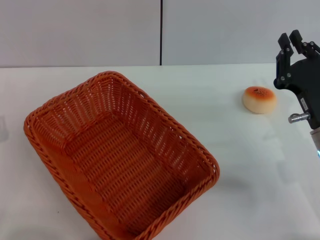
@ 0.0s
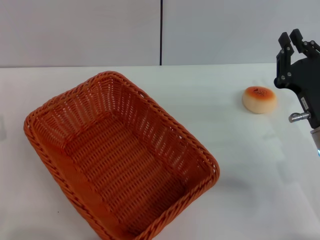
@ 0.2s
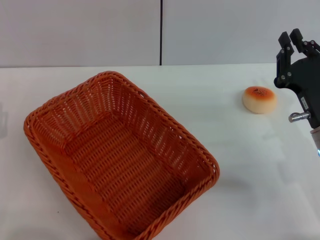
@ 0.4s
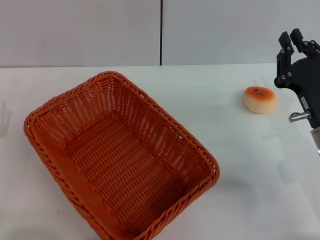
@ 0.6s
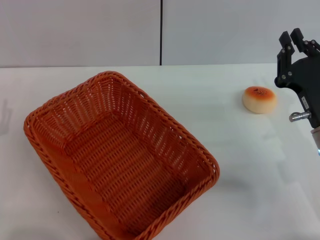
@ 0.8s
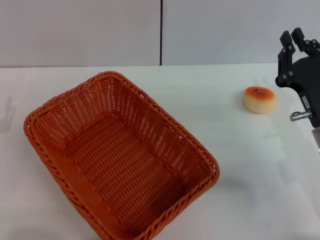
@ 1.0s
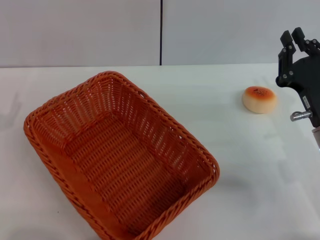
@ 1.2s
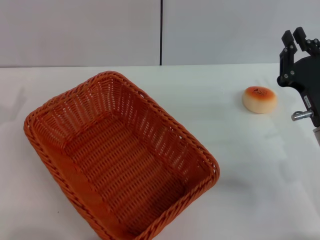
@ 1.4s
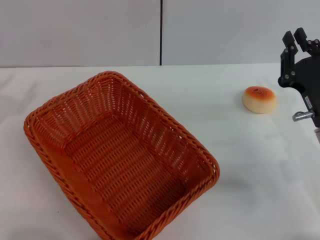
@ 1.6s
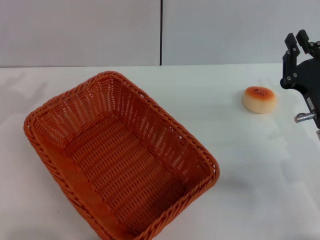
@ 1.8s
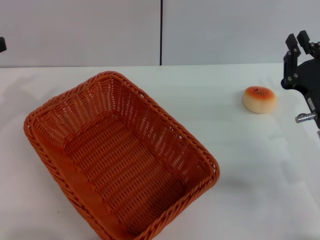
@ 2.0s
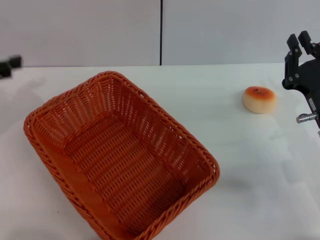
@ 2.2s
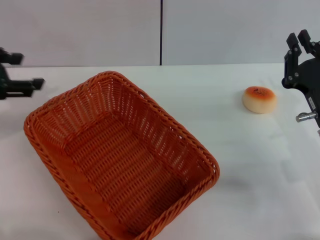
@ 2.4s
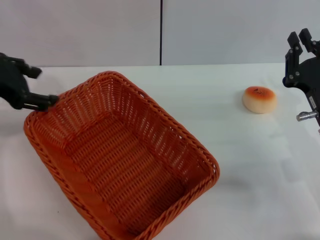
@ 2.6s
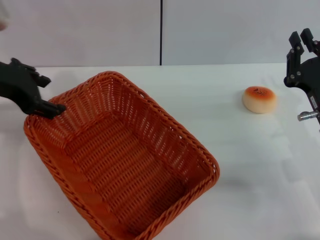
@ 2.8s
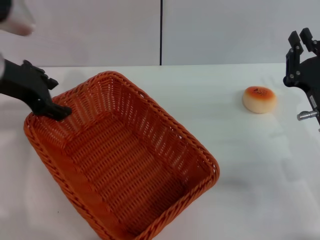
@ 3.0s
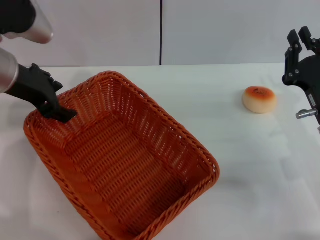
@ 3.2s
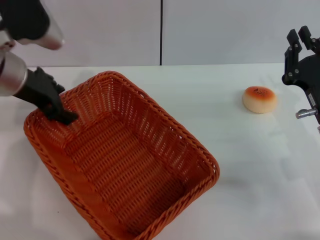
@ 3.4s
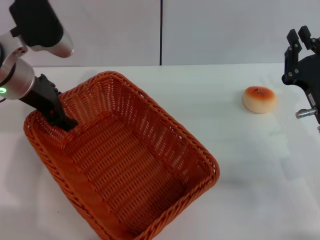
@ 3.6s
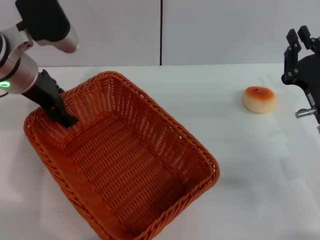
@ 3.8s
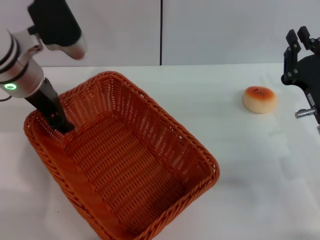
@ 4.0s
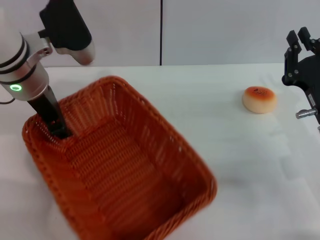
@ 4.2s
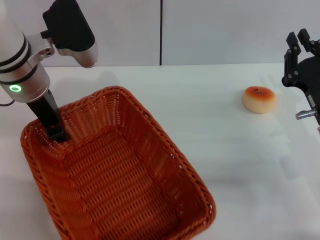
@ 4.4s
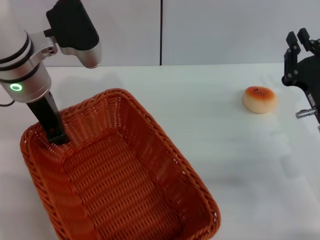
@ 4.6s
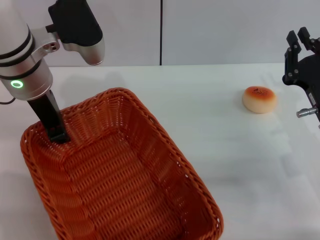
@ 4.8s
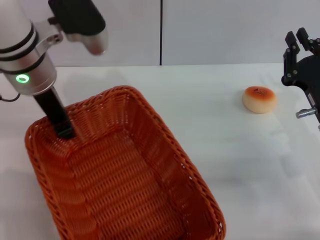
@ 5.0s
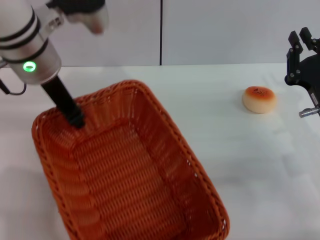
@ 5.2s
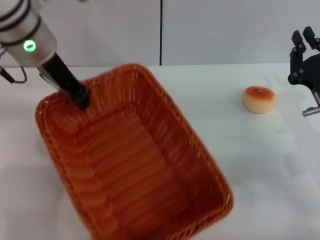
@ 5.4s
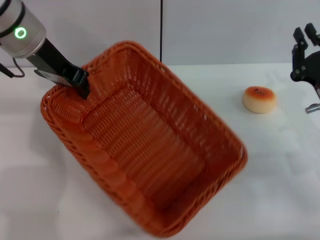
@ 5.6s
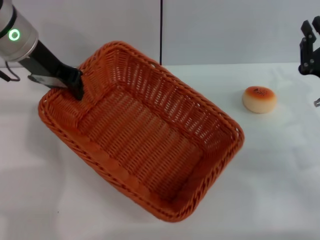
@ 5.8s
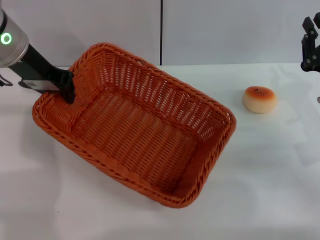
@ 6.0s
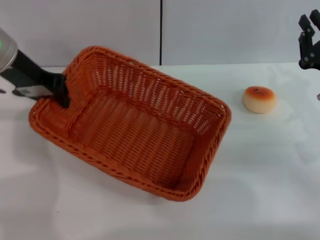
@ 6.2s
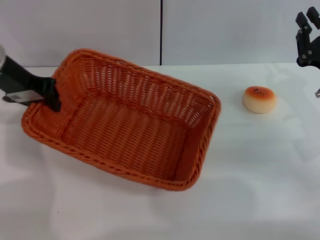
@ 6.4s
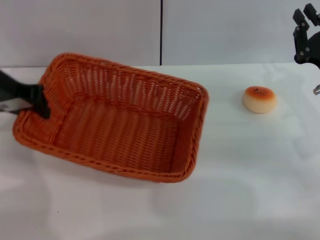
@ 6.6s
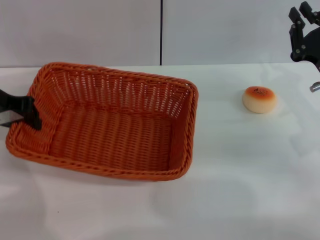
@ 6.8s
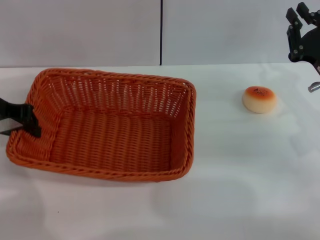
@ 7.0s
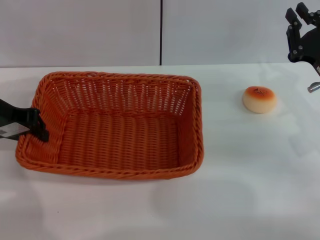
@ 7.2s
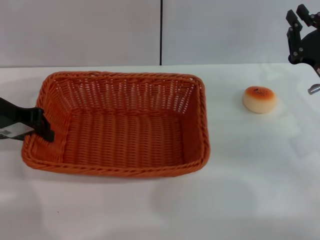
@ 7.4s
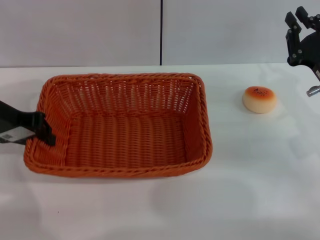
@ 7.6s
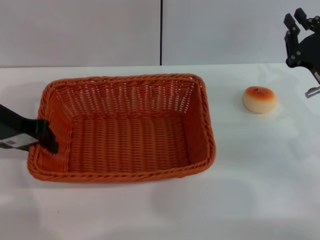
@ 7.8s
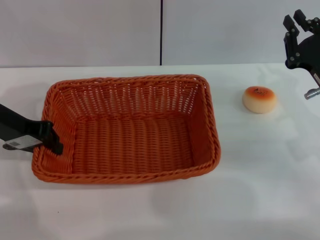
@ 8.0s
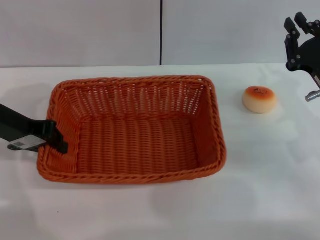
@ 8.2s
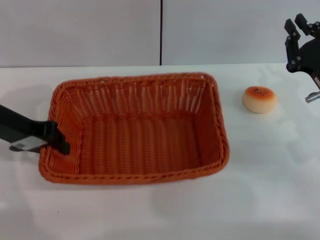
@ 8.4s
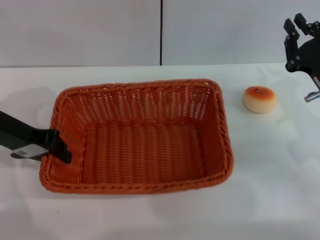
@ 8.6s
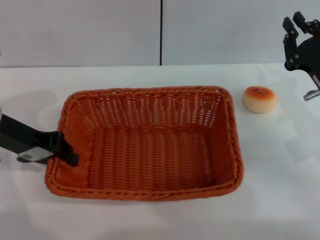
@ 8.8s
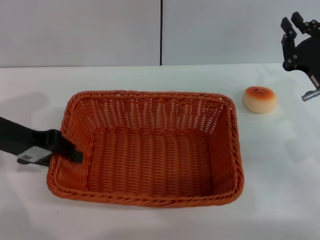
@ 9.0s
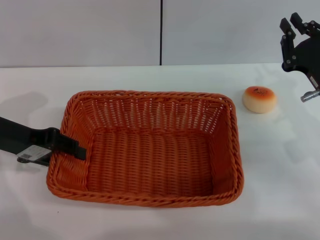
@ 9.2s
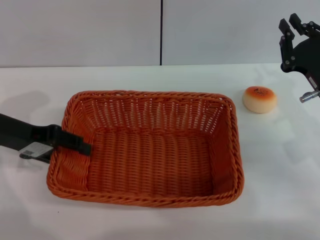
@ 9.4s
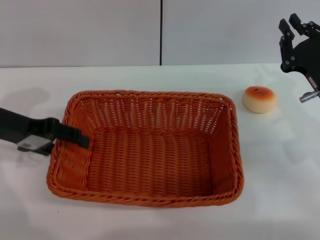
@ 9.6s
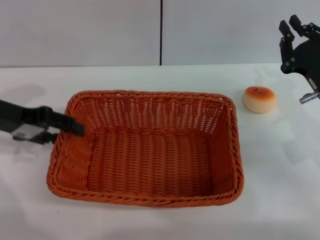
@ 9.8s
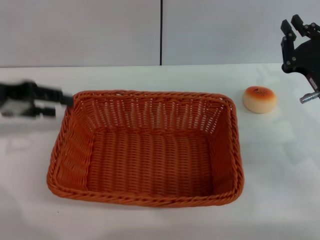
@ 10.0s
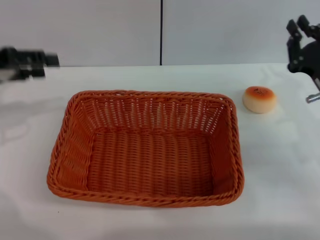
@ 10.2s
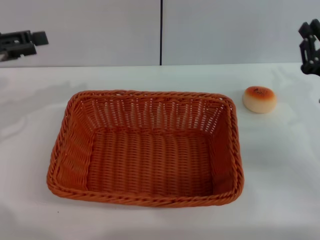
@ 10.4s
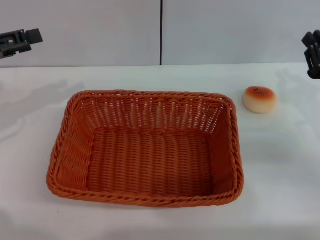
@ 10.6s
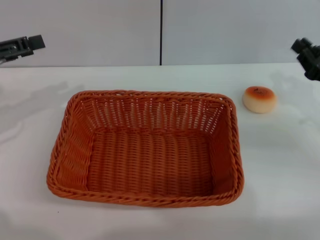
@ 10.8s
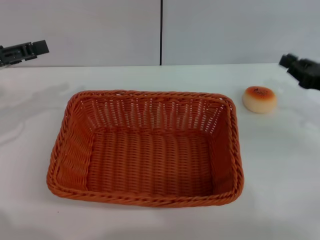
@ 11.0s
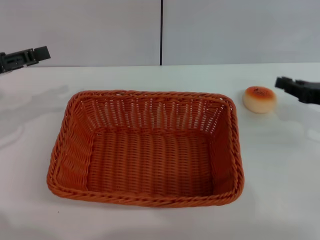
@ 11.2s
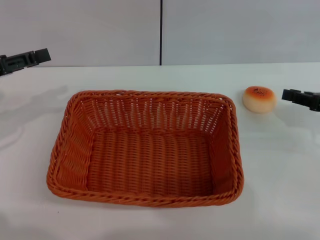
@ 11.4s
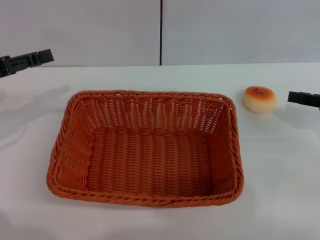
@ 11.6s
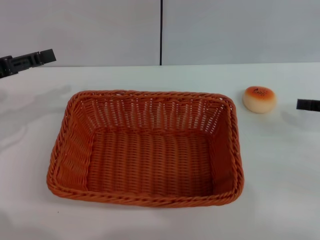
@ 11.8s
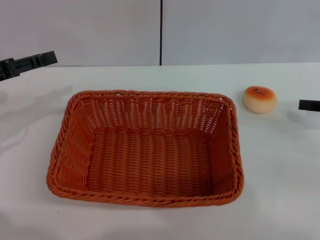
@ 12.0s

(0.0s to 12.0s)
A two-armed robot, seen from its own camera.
Step, 0.0s - 10.0s: Move the basket to the center of view with the left gripper.
1.6s - 3.0s: The left gripper goes about 20 cm to the right, upward and forward.
3.0s - 4.4s: The left gripper heads to the right, covering some 5 cm, and closes up.
4.4s - 6.0s: The left gripper changes place by about 5 cm, and closes up.
6.0s - 7.6s: The left gripper goes some 10 cm to the left and backward.
9.0s - 10.4s: The left gripper moves to the left, about 5 cm, and opens its fingers.
10.4s - 12.0s: The right gripper travels to the right and upward by some 10 cm, and opens its fingers.

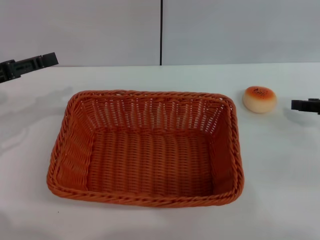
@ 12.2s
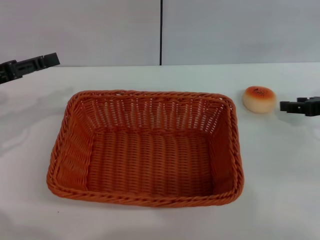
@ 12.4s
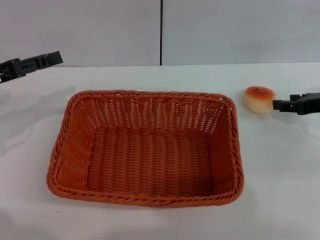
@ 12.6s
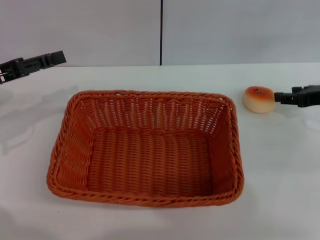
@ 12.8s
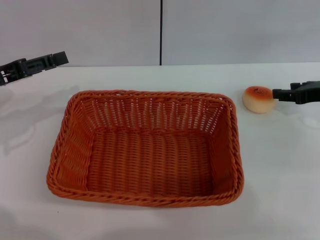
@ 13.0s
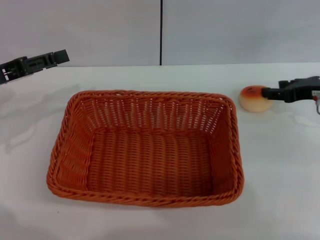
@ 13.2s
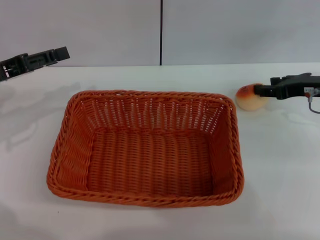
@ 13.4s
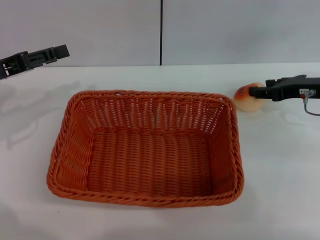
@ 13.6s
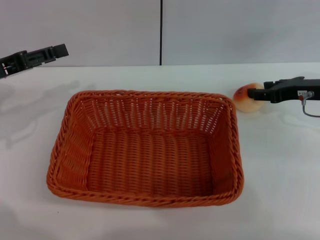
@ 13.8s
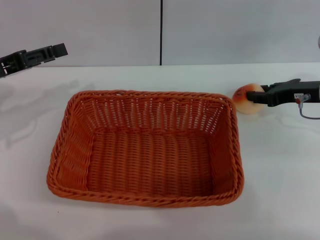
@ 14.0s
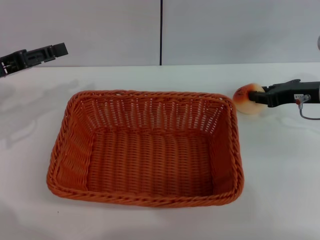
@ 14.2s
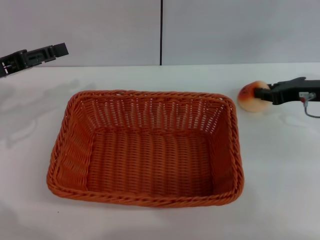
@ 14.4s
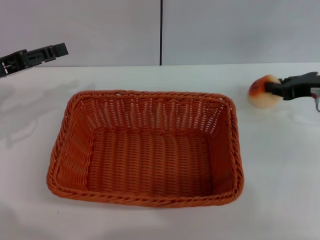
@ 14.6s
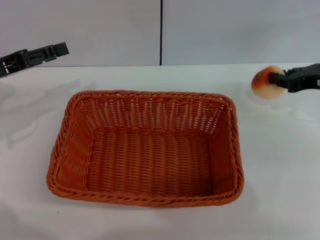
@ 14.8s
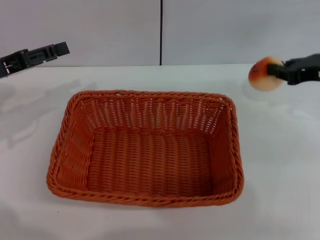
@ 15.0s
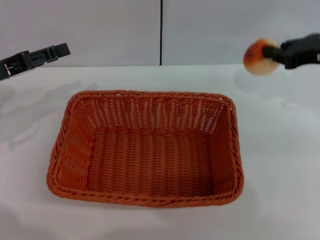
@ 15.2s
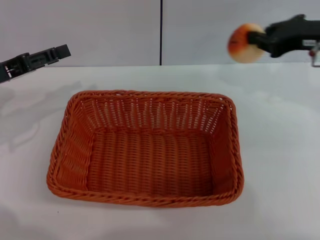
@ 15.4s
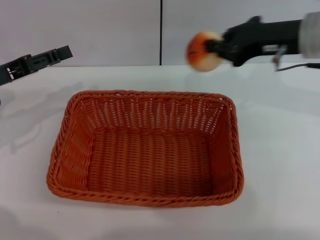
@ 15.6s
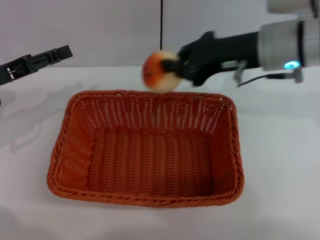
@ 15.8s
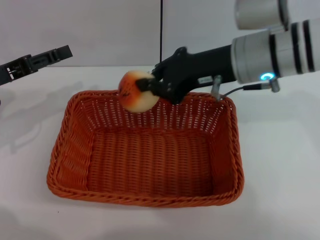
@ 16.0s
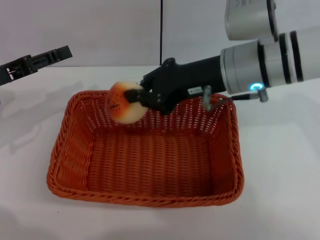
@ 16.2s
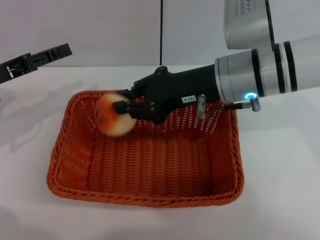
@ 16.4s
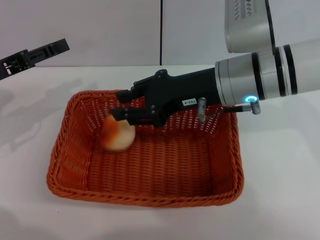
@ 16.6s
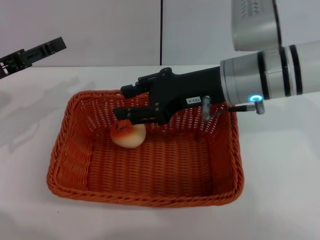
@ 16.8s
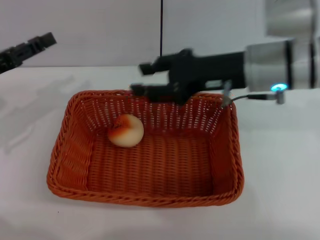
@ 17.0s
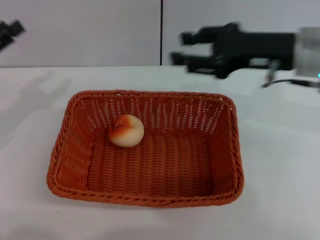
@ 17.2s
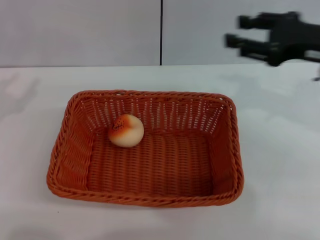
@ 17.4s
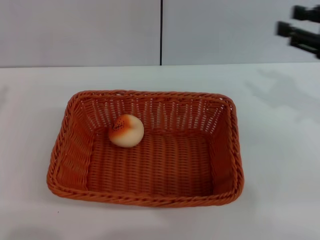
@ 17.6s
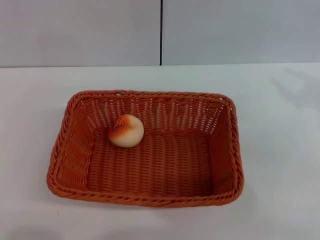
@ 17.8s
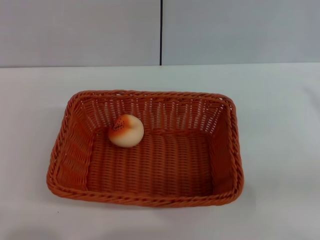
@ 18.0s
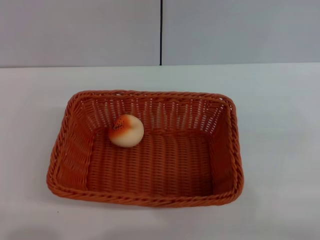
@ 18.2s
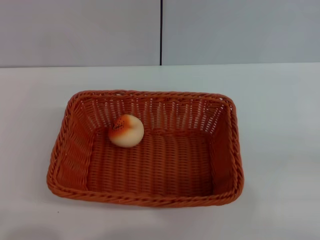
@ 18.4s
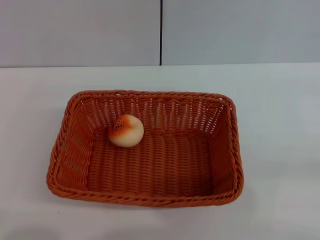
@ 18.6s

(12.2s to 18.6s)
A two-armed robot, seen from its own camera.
Step, 12.2s - 15.0s: Pick up the egg yolk pastry with the right gripper.
Step, 15.2s - 17.0s: Place the egg yolk pastry into the basket with the right gripper.
12.2s - 13.8s: The right gripper moves to the left, some 5 cm.
13.8s - 15.4s: The right gripper shifts about 10 cm upward, and closes up.
15.4s - 17.0s: The right gripper moves to the left, approximately 10 cm, and opens.
17.0s - 18.6s: The right gripper goes roughly 35 cm to the right and backward; the left gripper shifts about 20 cm backward and to the left.

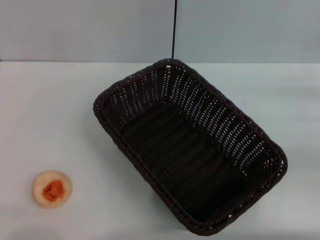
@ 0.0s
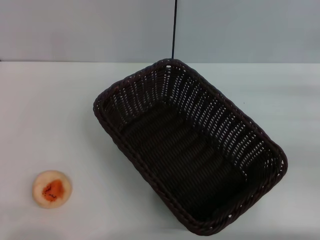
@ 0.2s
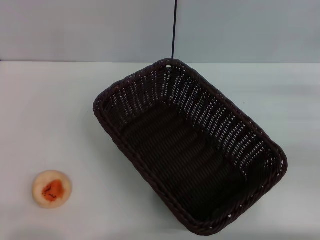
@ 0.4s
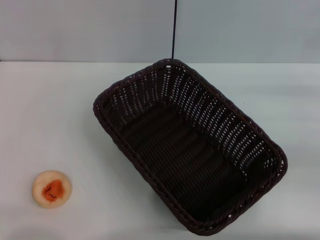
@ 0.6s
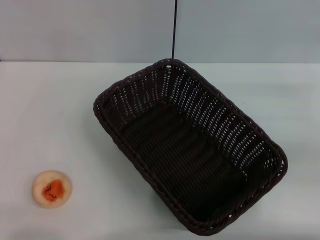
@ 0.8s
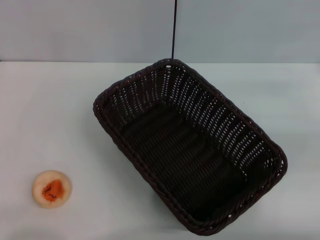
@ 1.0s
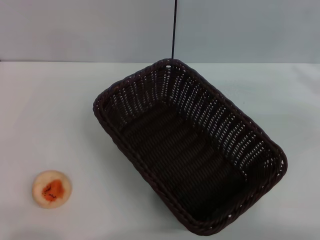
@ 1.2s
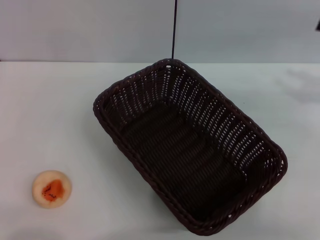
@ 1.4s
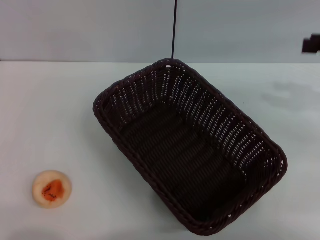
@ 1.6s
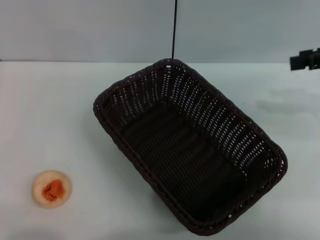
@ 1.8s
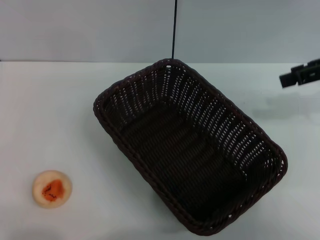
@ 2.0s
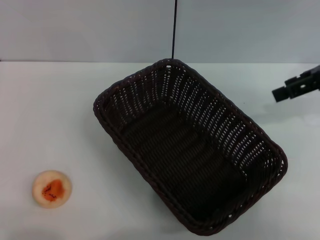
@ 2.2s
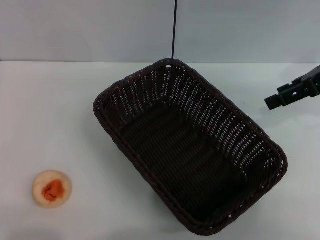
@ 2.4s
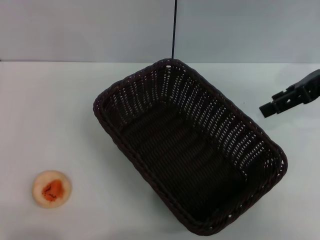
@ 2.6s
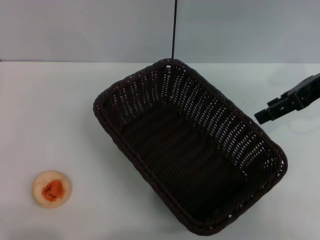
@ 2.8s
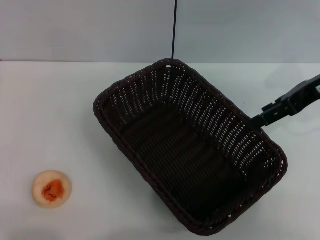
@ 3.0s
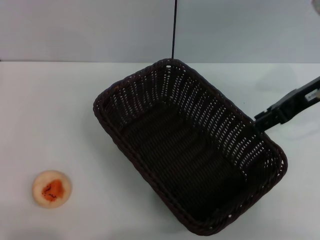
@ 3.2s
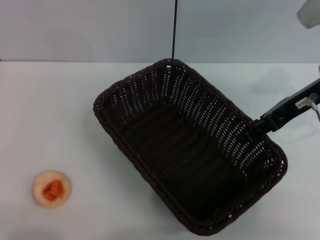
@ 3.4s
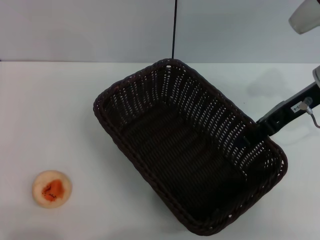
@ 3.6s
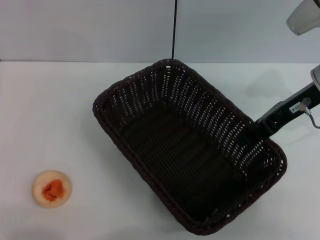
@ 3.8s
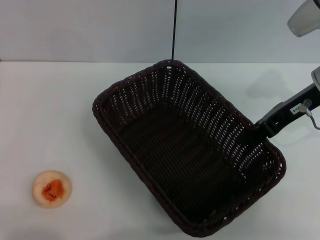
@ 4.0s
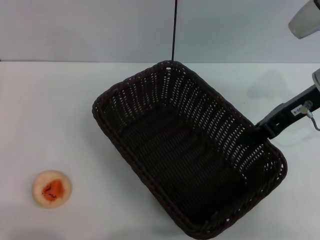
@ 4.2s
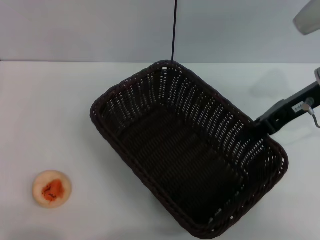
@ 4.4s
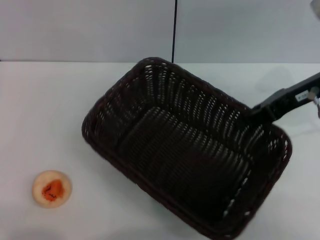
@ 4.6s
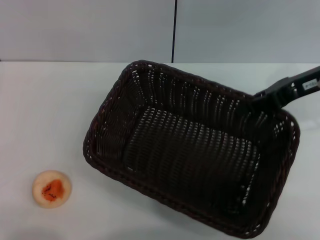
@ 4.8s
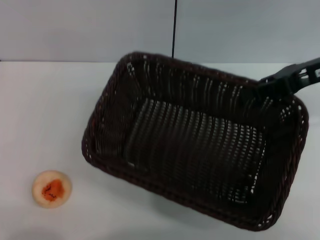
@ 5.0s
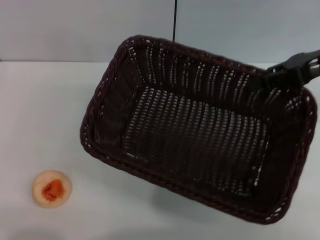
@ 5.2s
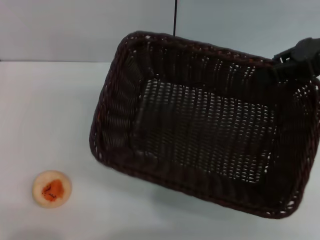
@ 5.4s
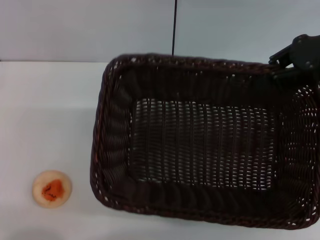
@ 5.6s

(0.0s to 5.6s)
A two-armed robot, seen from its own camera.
1.4s - 2.8s: The right gripper goes roughly 10 cm to the left.
2.8s - 4.2s: The right gripper ends up about 5 cm from where it was, and closes.
4.2s - 5.6s: The right gripper goes approximately 10 cm upward.
